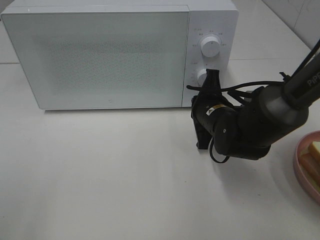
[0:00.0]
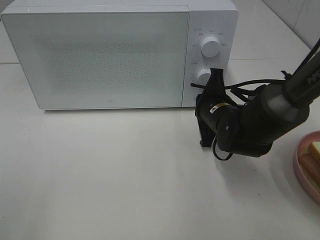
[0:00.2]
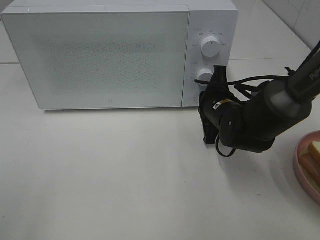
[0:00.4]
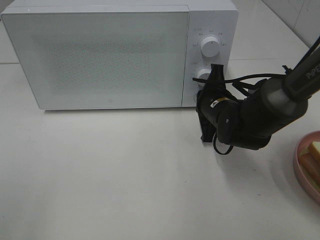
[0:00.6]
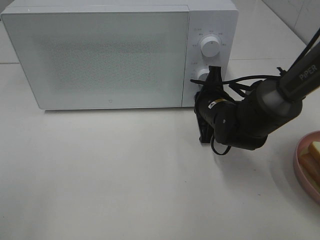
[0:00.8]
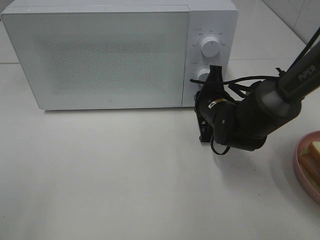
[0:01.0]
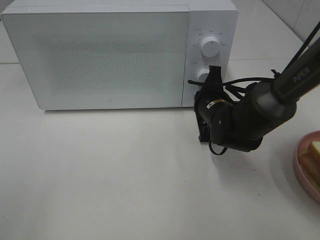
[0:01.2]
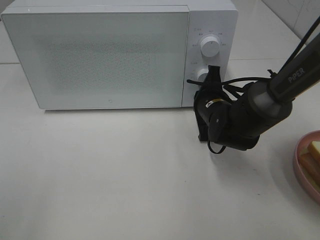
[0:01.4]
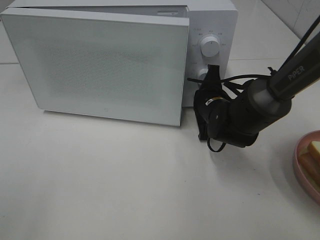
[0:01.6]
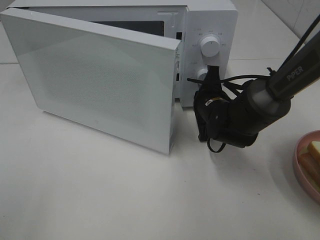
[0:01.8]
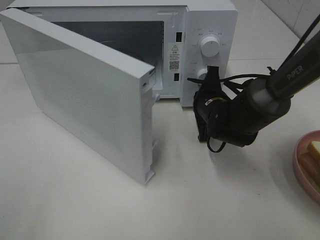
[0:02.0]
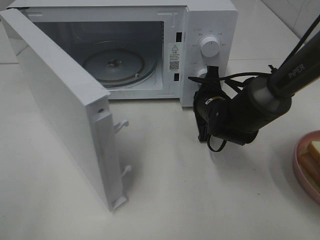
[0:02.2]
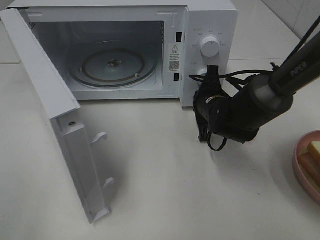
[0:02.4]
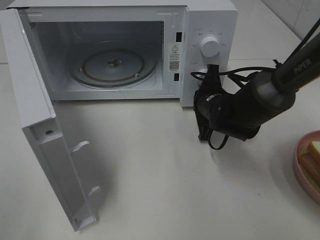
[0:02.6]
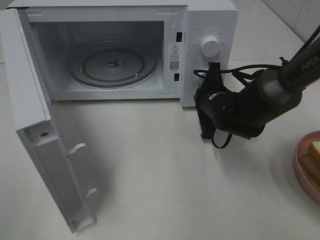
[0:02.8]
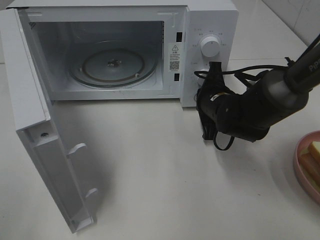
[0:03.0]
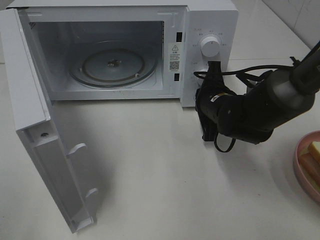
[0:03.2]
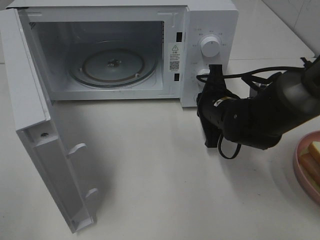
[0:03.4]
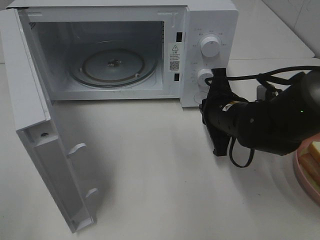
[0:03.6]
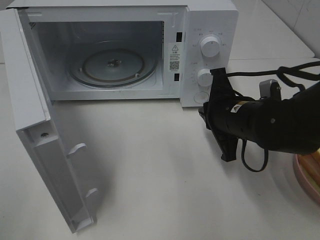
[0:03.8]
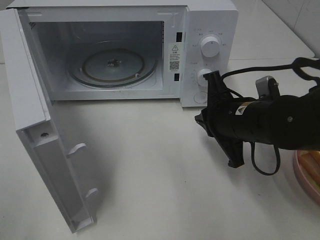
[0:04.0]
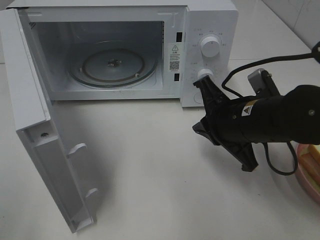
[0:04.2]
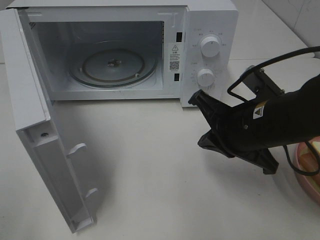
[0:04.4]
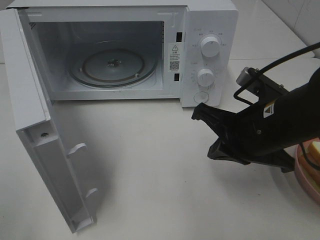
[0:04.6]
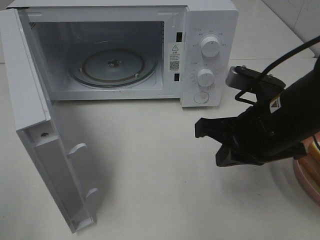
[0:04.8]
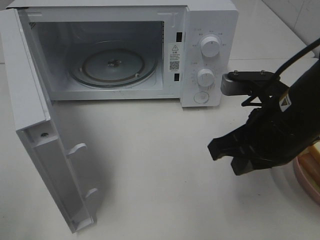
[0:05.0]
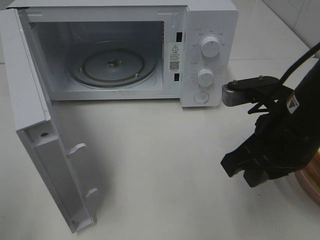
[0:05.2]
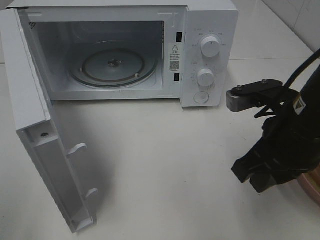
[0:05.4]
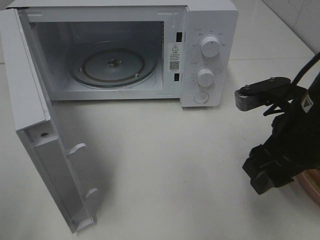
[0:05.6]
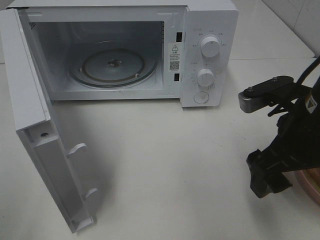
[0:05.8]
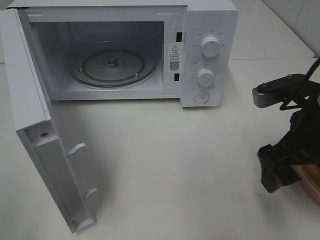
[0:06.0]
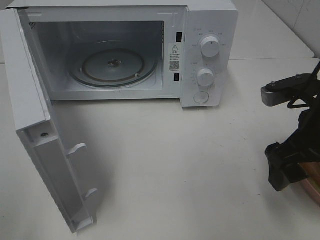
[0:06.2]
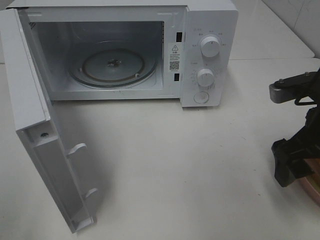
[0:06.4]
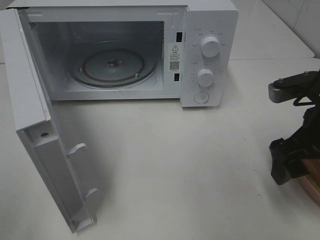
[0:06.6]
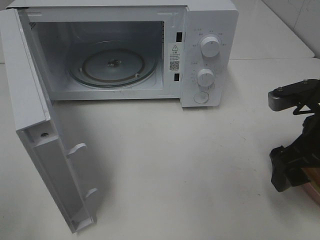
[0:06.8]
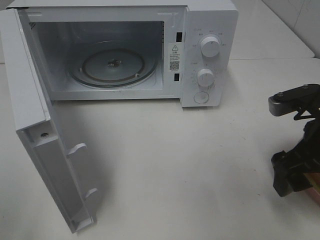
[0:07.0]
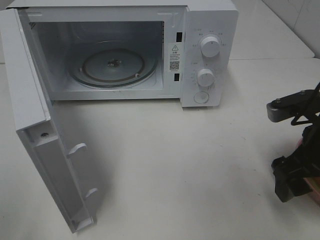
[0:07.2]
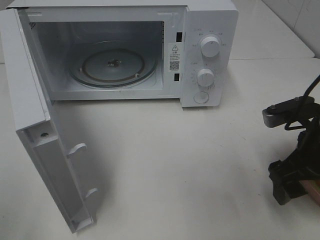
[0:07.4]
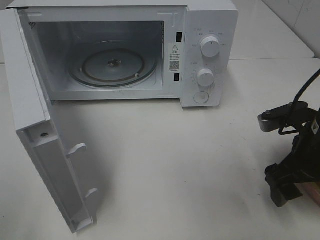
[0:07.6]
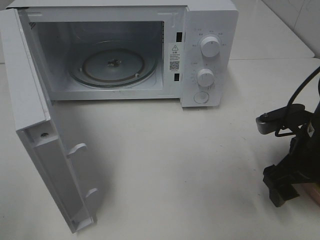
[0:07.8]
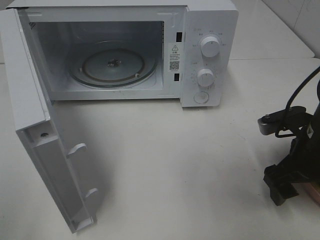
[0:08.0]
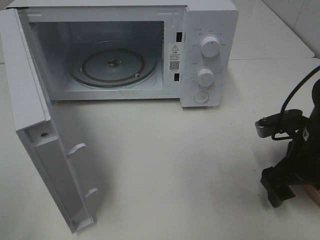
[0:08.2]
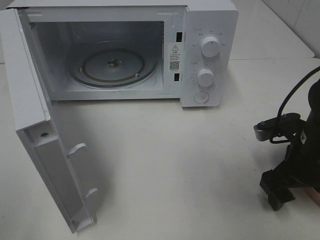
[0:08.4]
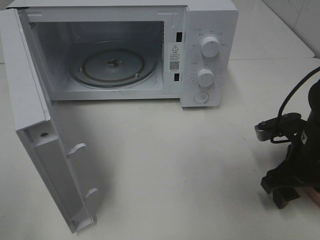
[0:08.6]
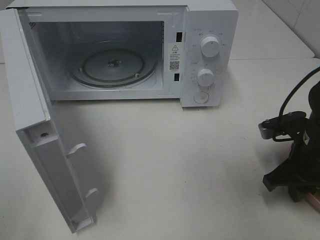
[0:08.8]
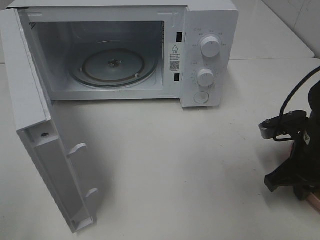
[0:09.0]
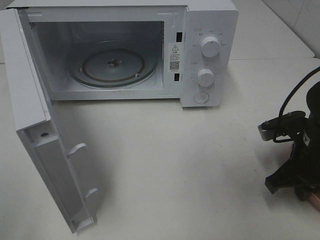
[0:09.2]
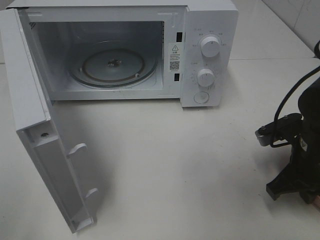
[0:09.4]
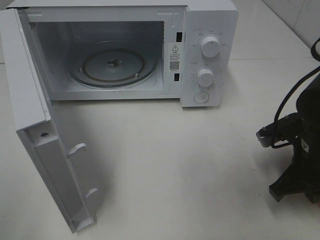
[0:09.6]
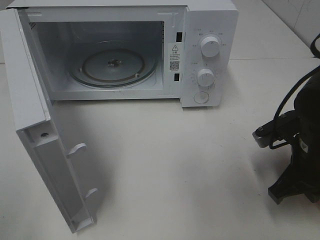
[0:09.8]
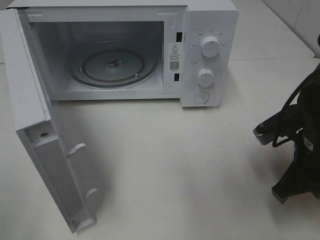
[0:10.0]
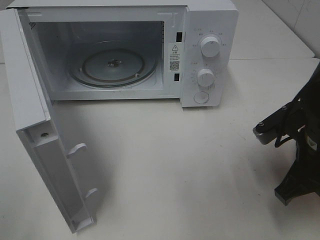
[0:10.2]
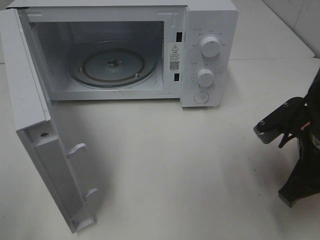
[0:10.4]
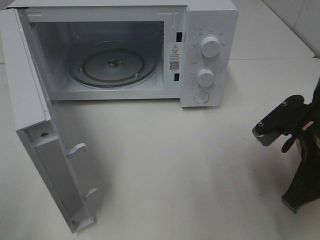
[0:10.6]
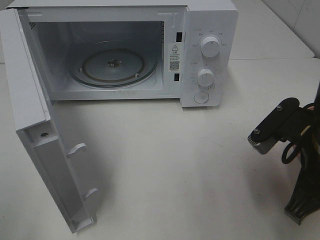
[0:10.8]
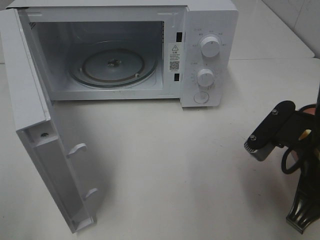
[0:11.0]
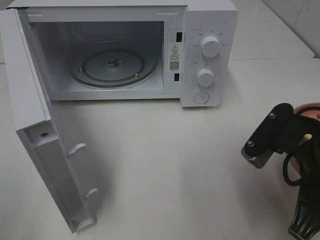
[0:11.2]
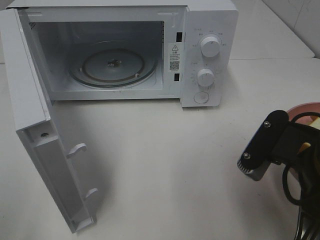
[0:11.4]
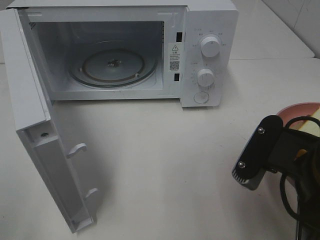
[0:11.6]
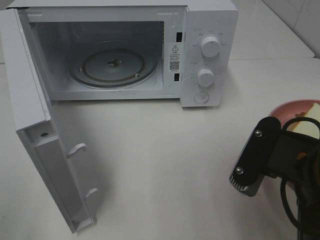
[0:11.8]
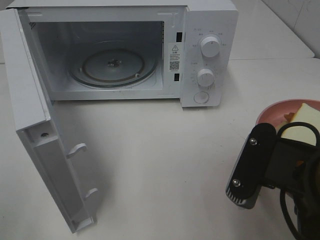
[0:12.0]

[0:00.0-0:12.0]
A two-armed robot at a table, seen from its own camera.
Task of the whole recording: Heat Sandwich.
Step, 0:00.0 to 0:03.2: Right hand: press the switch.
Step, 0:03.4 to 0:09.4: Right hand: grab the plate with the sandwich.
0:00.0 to 0:01.6: There are only small adjustments of the grippers.
0:03.0 to 0:04.4: The right gripper heads backward and upward, covering roughly 15 cm.
0:04.4 to 0:06.0: The right gripper heads to the right, covering about 5 cm, and opens.
0:06.0 to 0:07.6: The right gripper goes approximately 5 cm downward.
0:07.6 to 0:09.0: The right gripper closes its fingers.
0:09.0 to 0:10.4: The right gripper heads upward, covering some 5 cm.
0:10.4 to 0:12.0: The right gripper goes some 10 cm backward and to the left.

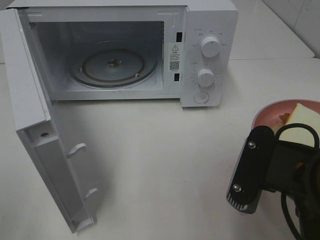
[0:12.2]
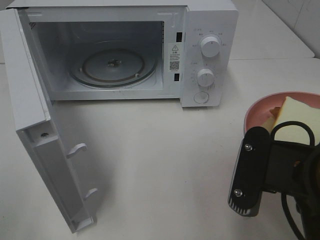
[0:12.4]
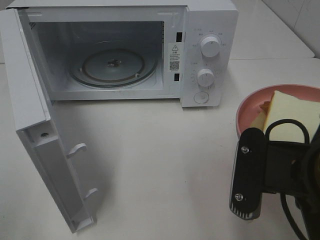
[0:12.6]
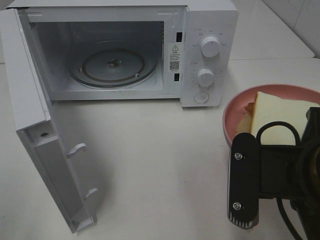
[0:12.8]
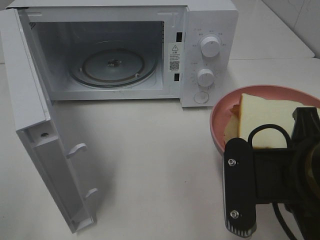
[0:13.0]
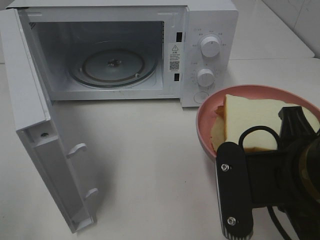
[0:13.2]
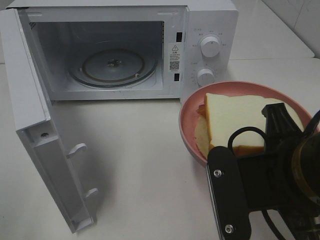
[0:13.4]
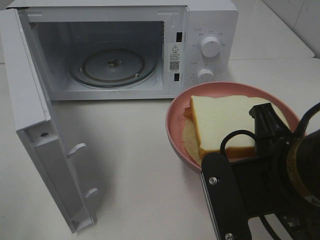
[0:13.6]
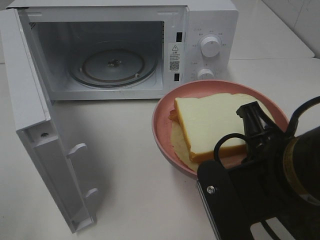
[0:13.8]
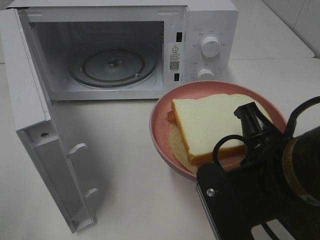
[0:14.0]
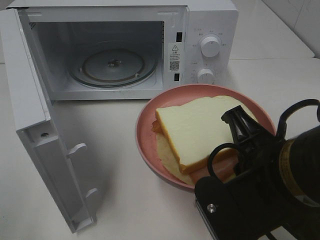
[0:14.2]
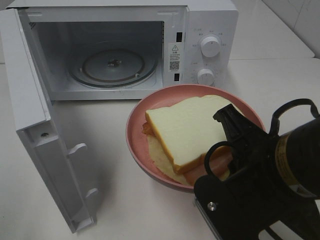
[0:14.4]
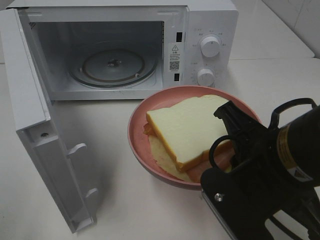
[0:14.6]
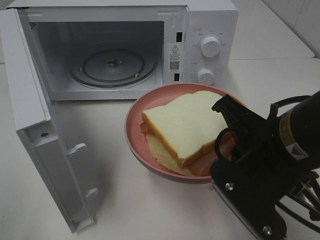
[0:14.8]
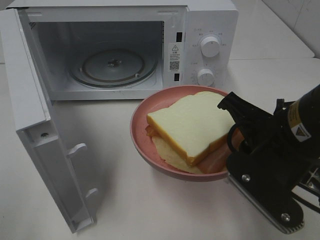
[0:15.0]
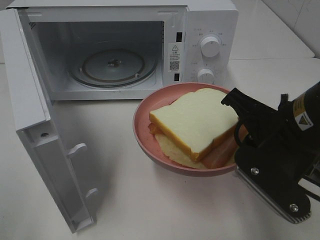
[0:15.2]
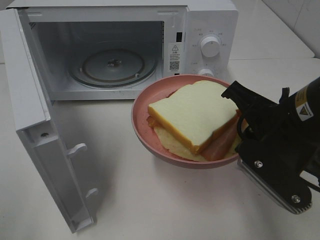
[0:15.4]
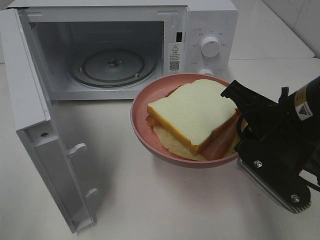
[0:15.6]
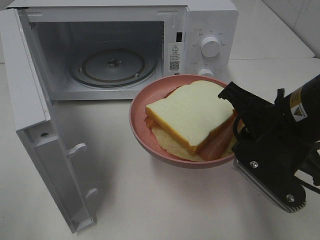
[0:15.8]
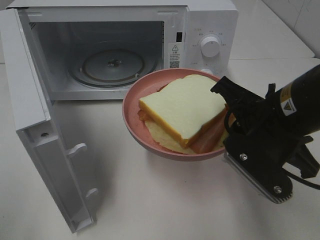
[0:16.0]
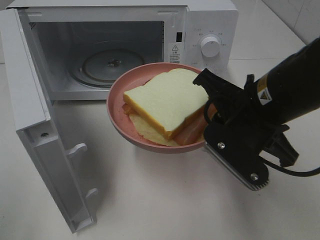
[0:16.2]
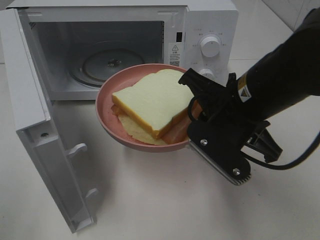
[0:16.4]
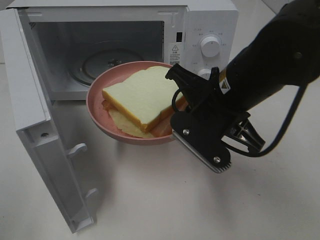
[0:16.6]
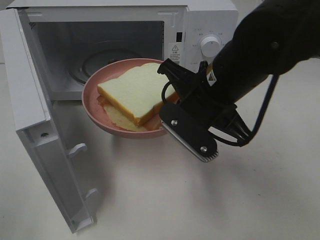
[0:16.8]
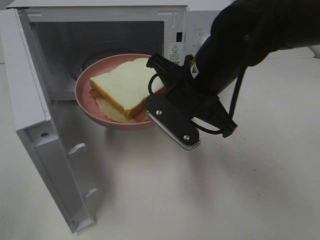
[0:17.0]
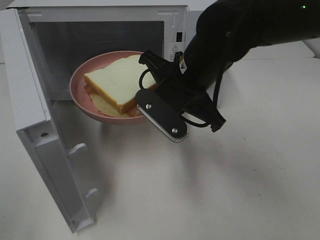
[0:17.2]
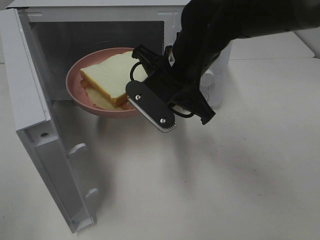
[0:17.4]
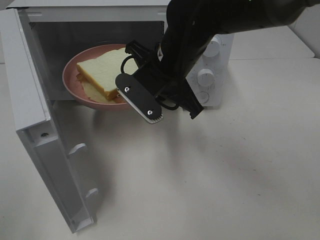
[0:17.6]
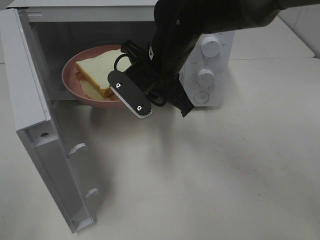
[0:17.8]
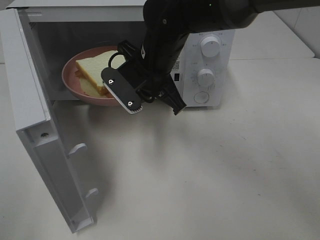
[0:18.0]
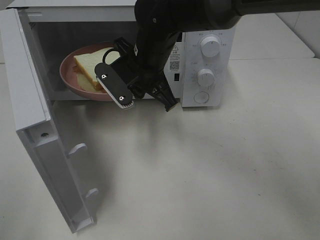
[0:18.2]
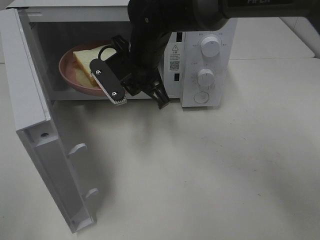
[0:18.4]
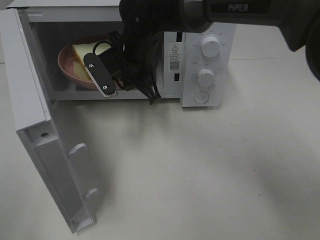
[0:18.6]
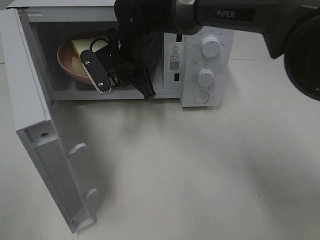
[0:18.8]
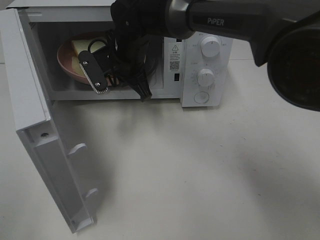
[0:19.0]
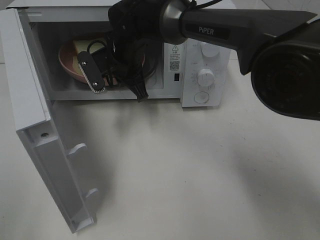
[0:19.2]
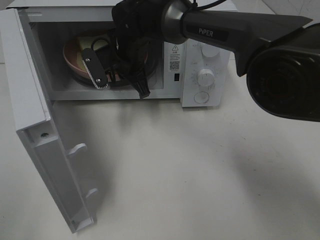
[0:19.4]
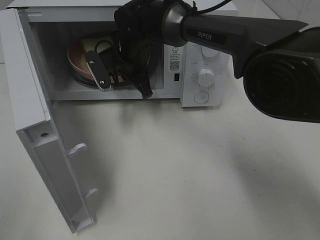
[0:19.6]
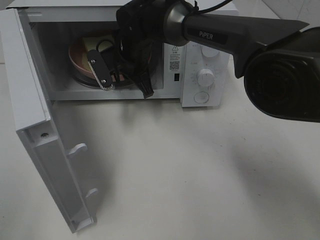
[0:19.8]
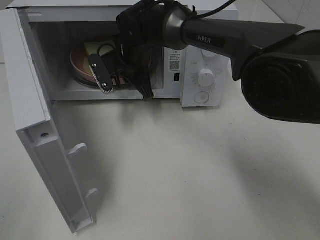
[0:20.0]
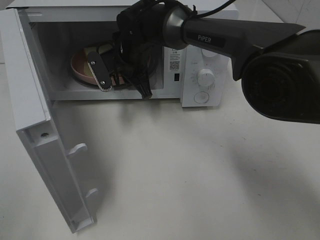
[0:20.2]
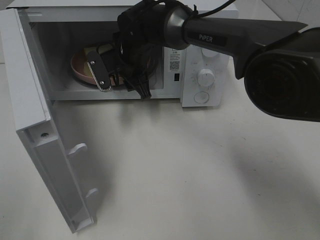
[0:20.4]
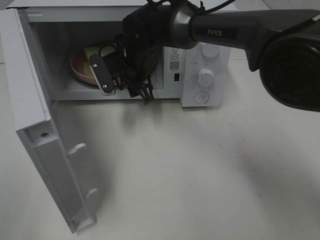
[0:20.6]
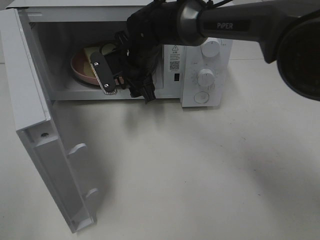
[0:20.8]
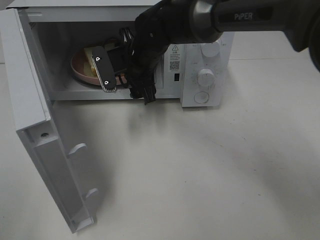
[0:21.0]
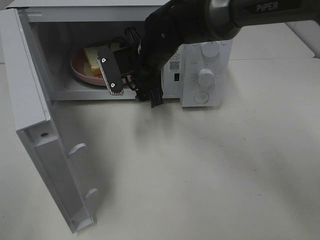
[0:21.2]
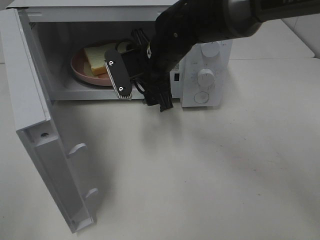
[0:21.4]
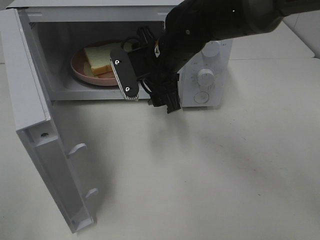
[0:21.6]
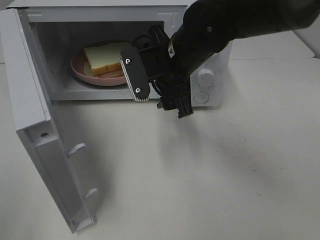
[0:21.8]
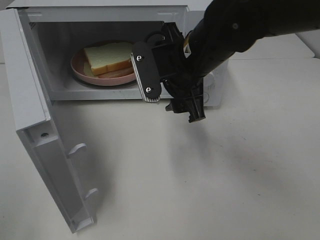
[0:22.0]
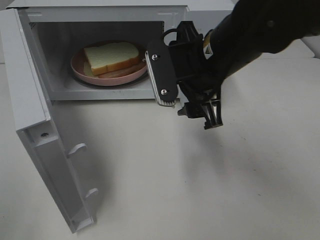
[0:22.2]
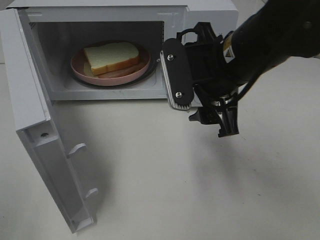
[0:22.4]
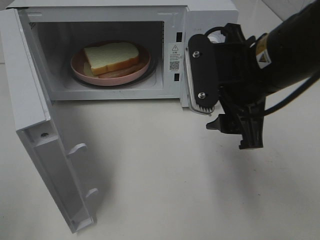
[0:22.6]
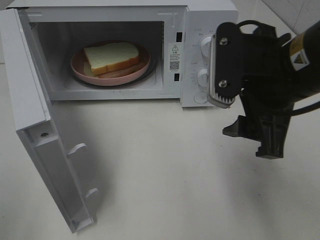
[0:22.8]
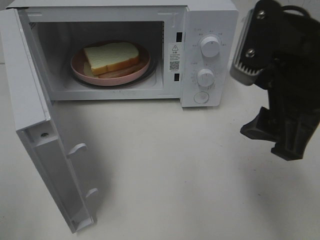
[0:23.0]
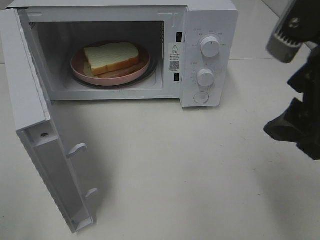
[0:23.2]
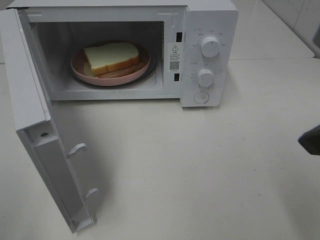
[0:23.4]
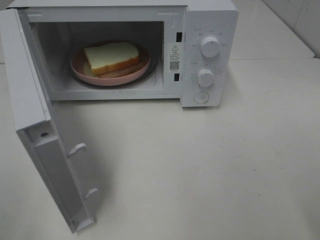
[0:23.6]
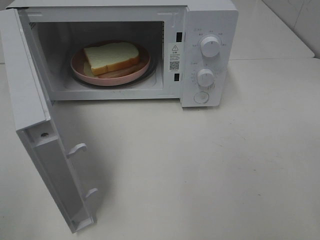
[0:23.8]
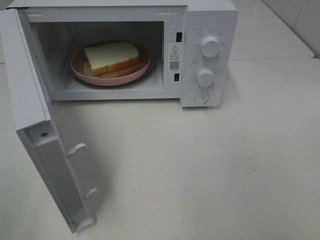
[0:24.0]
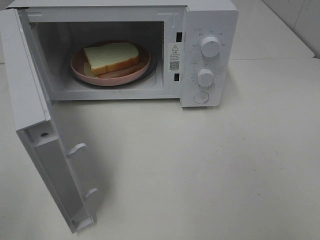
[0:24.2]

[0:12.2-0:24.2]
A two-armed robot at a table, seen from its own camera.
Task of the whole recording: Heat Sandwich.
Step, 0:12.2 to 0:21.2: Right hand: place the plate in the microwave.
0:13.8 to 0:15.2: The right gripper goes some 5 cm forward.
0:15.2 to 0:16.6: The right gripper travels to the left and forward by roughly 10 cm.
0:16.6 to 0:18.2: The right gripper moves forward and to the left, some 15 cm.
0:18.2 to 0:19.8: The right gripper heads forward, covering some 10 cm.
0:19.8 to 0:21.2: The right gripper travels backward by approximately 5 cm, and opens up.
0:21.2 to 0:22.6: The right gripper travels backward, to the right and upward by about 20 cm.
0:22.6 to 0:24.2: The right gripper heads backward, to the right and upward, covering about 25 cm.
